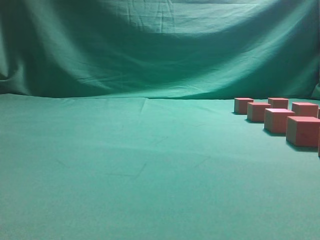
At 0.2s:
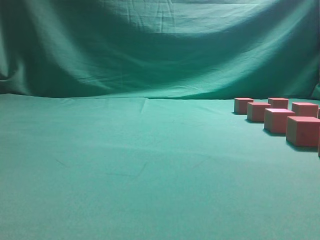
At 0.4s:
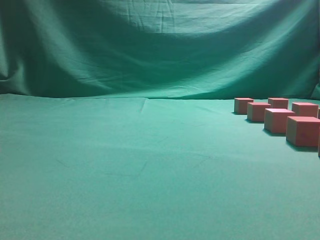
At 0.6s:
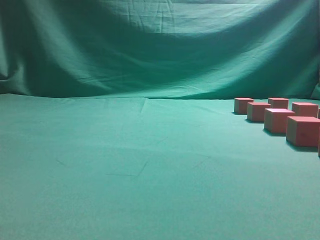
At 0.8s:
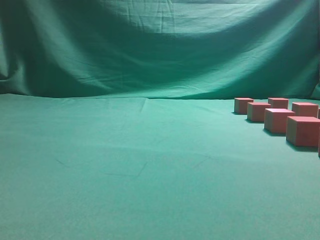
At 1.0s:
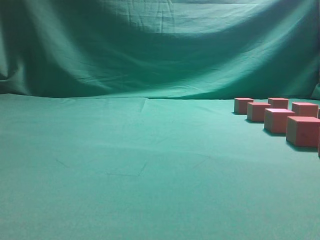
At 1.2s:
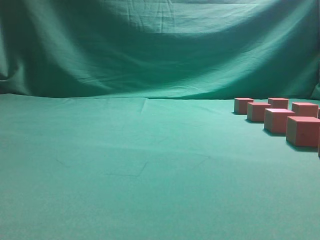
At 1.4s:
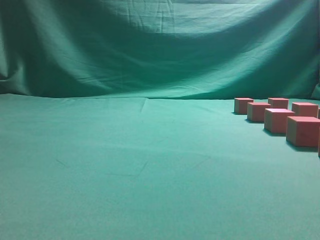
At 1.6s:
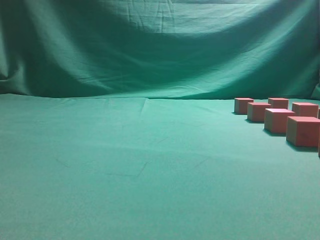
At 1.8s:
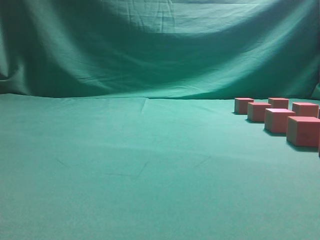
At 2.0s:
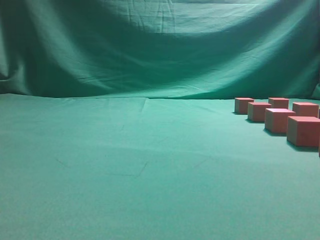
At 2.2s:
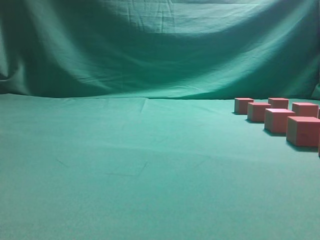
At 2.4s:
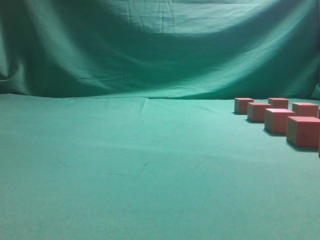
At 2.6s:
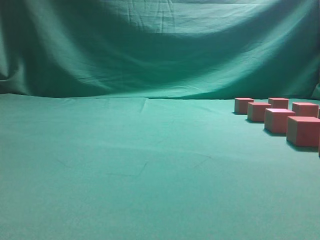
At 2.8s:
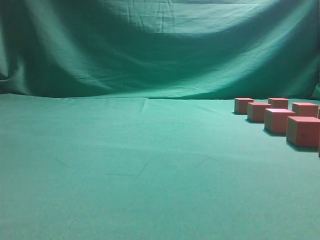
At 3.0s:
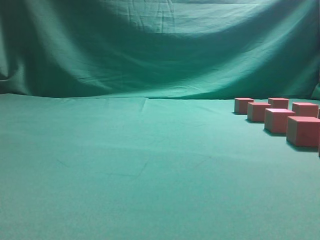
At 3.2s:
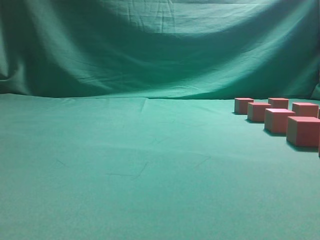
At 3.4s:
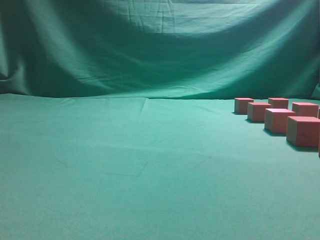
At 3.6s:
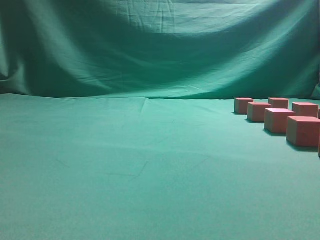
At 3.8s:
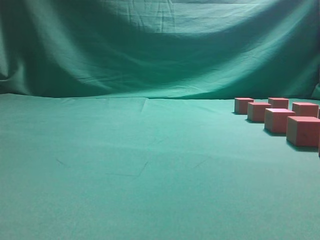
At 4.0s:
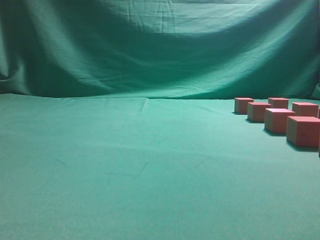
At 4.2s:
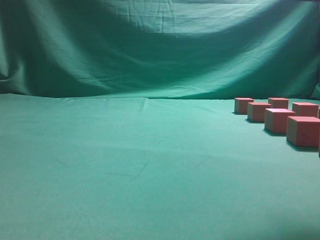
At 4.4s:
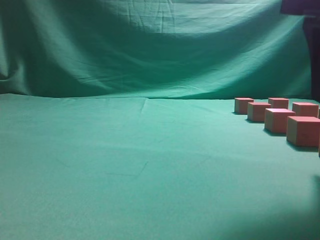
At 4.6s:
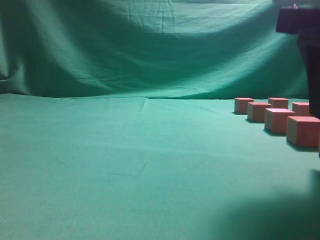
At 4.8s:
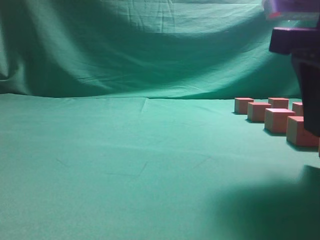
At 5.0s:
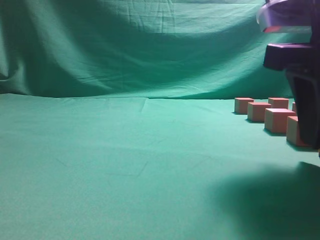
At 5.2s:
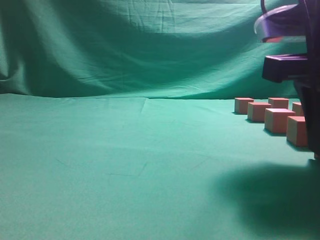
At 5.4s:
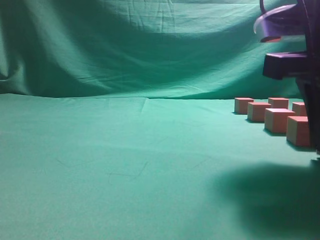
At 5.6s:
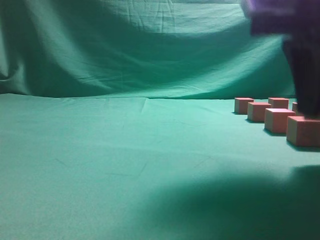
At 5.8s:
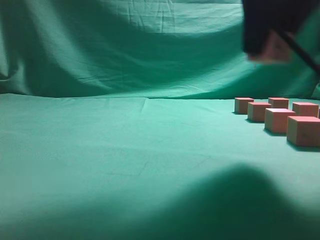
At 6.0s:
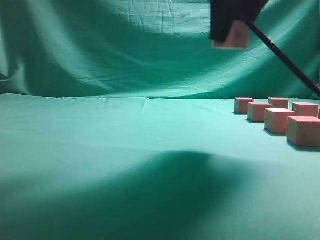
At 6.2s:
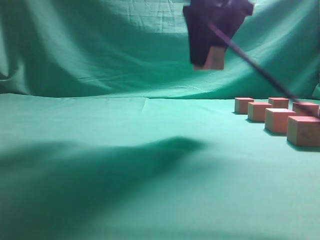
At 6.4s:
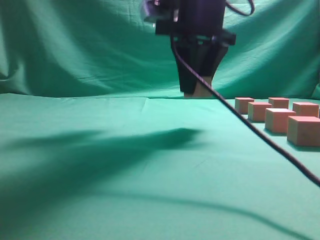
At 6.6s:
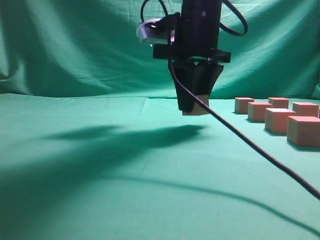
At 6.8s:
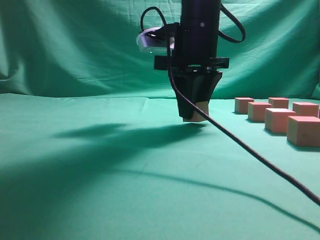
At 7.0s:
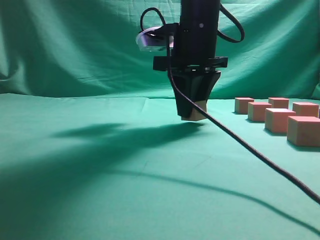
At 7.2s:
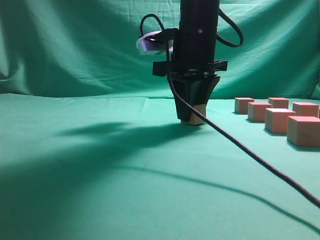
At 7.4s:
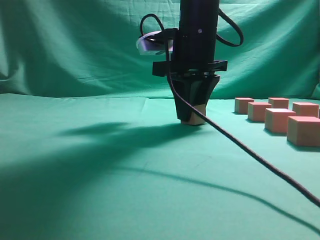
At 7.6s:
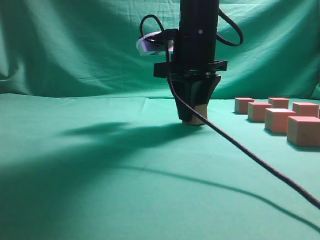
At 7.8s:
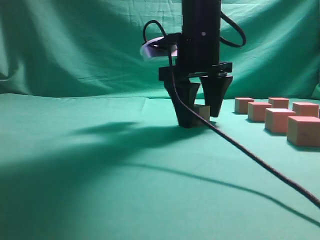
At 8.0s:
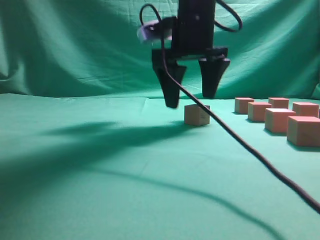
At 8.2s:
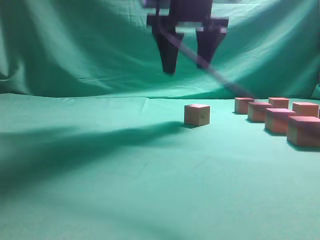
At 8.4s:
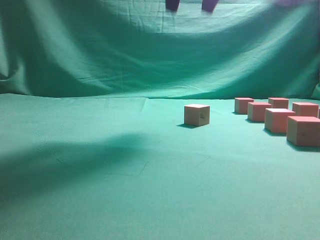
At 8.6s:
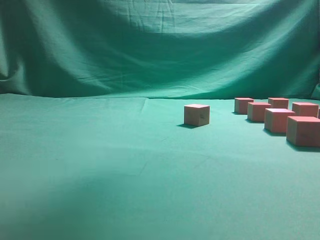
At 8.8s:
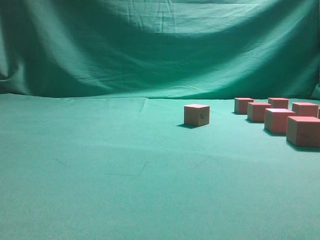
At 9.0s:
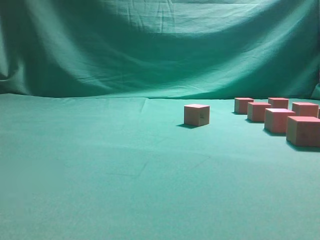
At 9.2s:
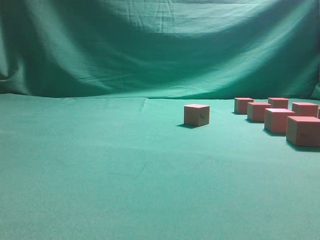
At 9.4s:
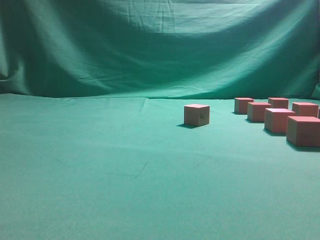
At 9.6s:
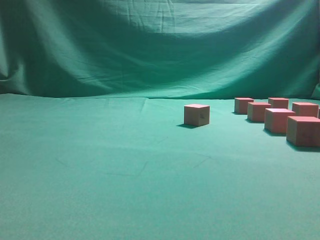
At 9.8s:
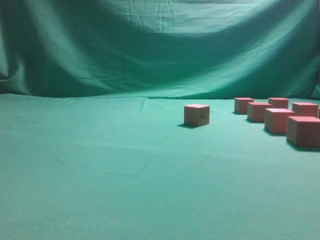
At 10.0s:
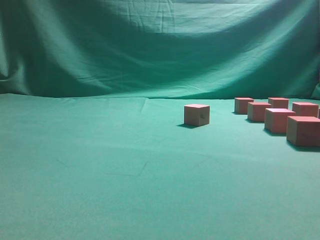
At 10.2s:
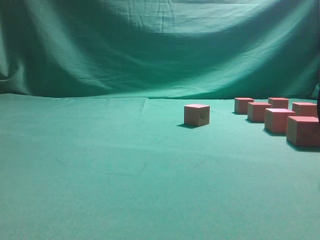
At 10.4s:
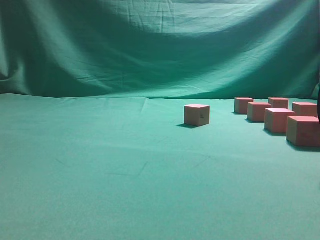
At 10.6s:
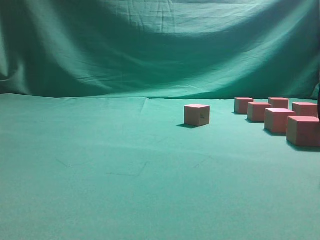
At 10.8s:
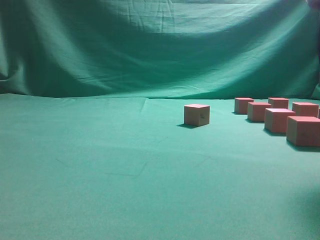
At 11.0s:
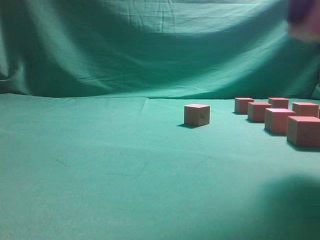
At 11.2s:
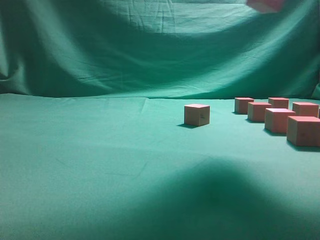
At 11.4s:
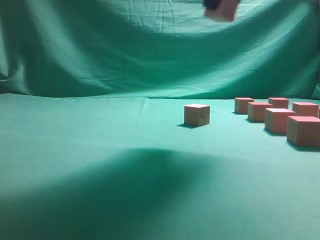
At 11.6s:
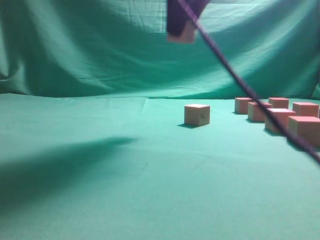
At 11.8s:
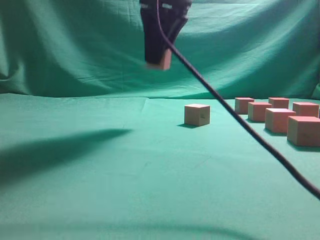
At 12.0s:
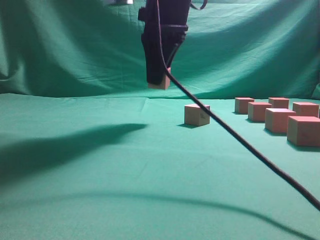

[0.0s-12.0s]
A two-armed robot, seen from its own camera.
Task of the whole recording: pick up the multiple cubes in two columns one by one and place them in another position on the table.
Step, 0.0s to 5.8s: Pick up the block on the table.
Step, 6.0s to 8.2s: Place the block at the correct position to assemble the letter S.
Step, 8.4s to 10.6s: Pick up the block on the table.
3.0s to 4.4s: The right gripper goes roughly 15 cm forward, downward and to the left, and opens up.
4.4s to 6.0s: The right gripper travels forward, to the left and upward by roughly 15 cm.
6.0s to 7.6s: The right gripper heads downward, forward and to the left, covering roughly 15 cm.
7.6s to 9.0s: The right gripper shifts about 30 cm upward, backward and to the right, and opens up.
10.4s to 12.0s: The right gripper goes about 25 cm to the left and forward.

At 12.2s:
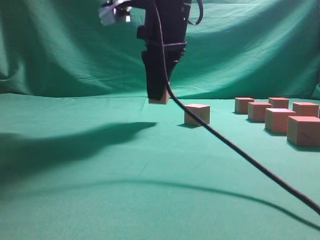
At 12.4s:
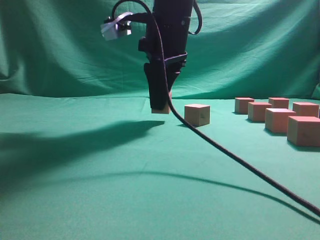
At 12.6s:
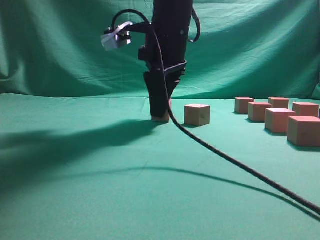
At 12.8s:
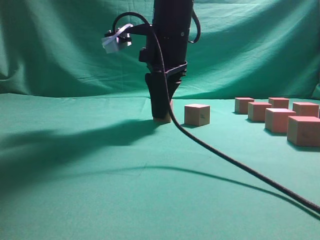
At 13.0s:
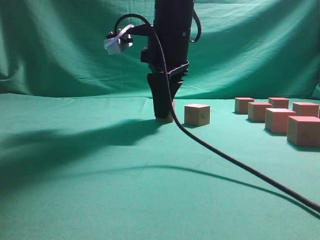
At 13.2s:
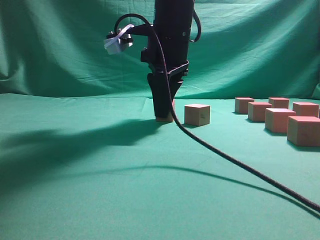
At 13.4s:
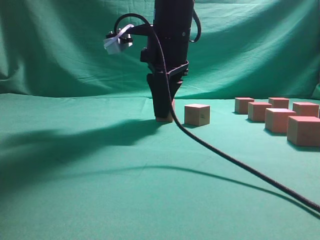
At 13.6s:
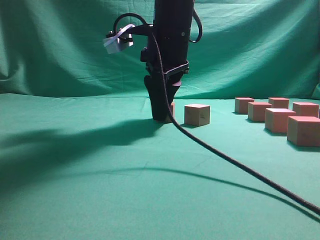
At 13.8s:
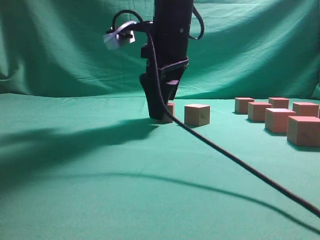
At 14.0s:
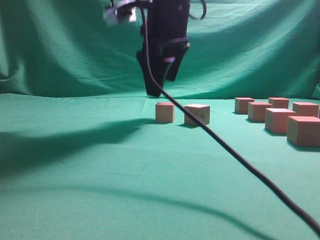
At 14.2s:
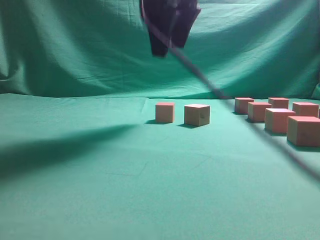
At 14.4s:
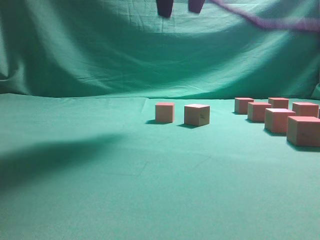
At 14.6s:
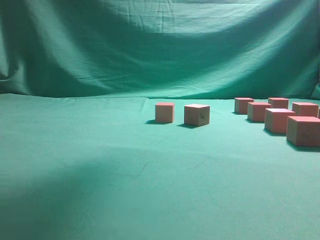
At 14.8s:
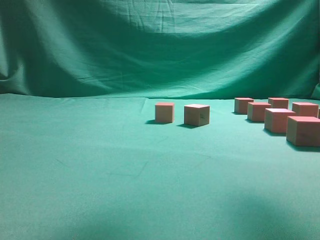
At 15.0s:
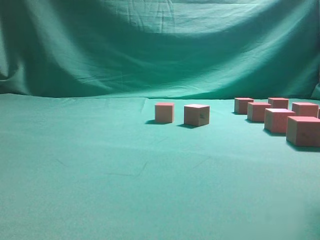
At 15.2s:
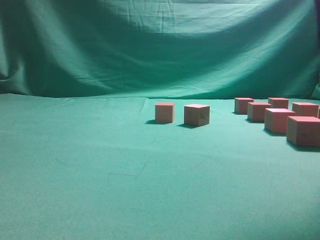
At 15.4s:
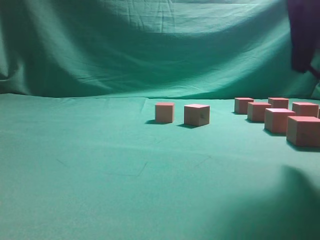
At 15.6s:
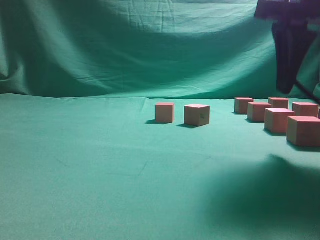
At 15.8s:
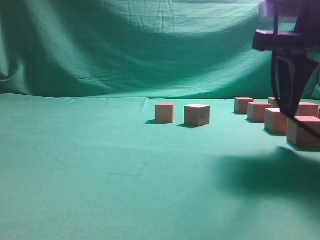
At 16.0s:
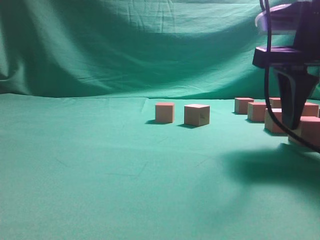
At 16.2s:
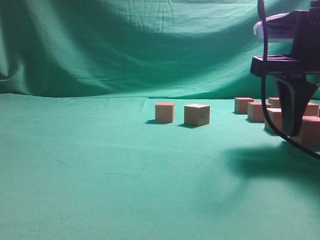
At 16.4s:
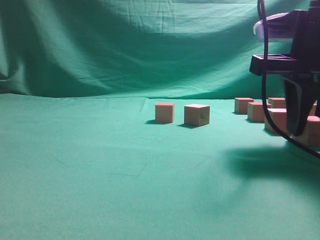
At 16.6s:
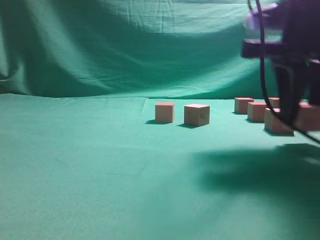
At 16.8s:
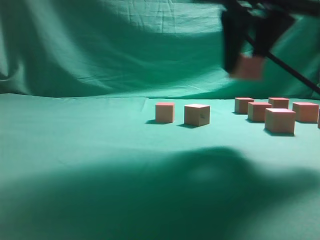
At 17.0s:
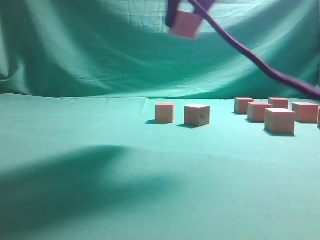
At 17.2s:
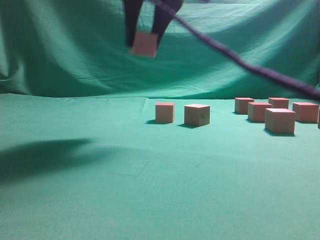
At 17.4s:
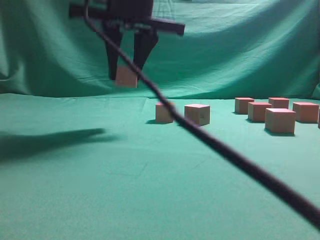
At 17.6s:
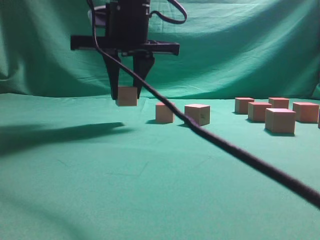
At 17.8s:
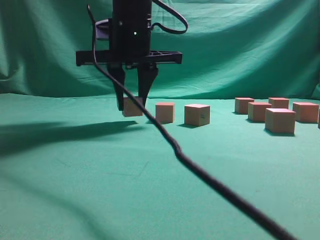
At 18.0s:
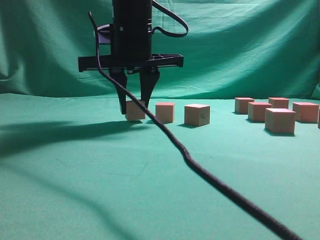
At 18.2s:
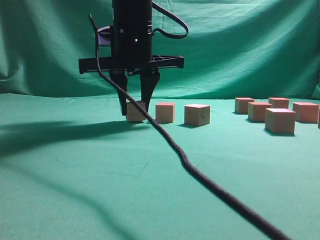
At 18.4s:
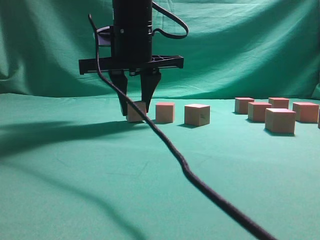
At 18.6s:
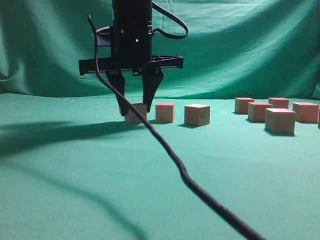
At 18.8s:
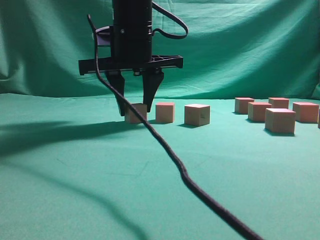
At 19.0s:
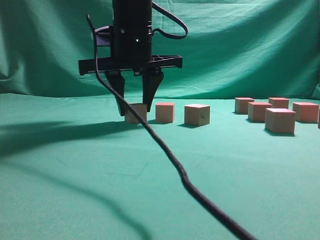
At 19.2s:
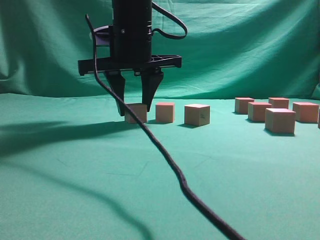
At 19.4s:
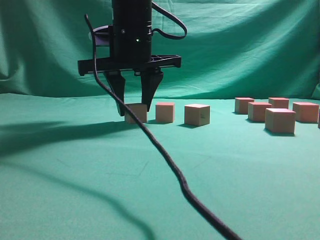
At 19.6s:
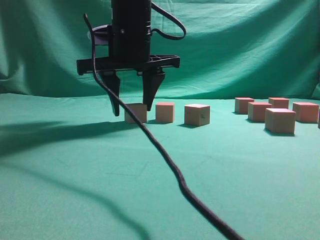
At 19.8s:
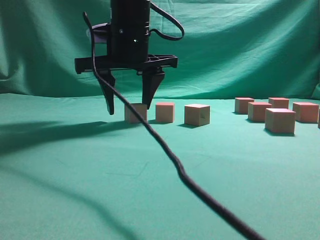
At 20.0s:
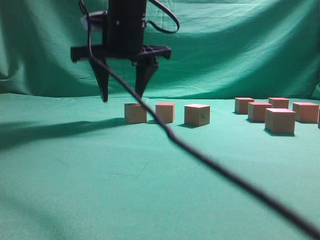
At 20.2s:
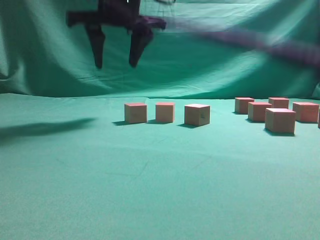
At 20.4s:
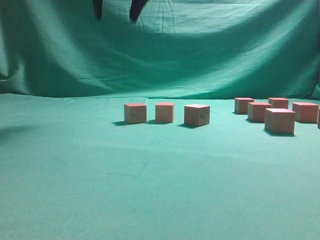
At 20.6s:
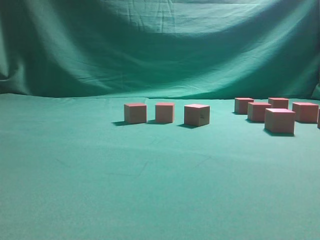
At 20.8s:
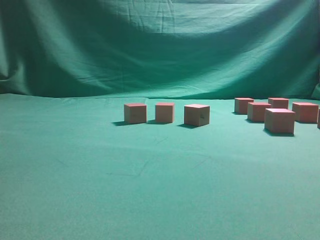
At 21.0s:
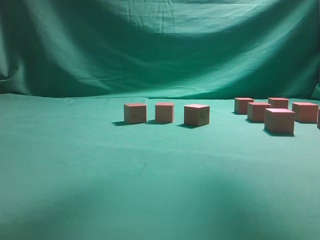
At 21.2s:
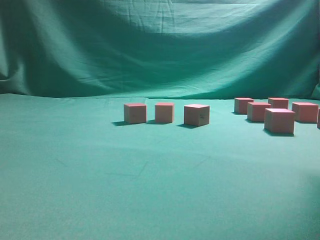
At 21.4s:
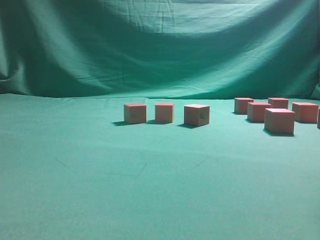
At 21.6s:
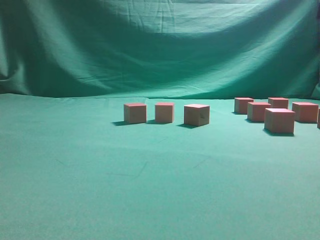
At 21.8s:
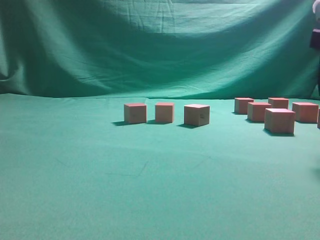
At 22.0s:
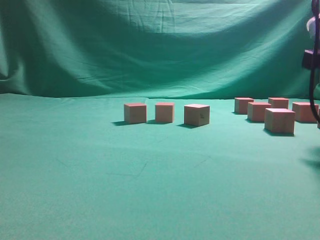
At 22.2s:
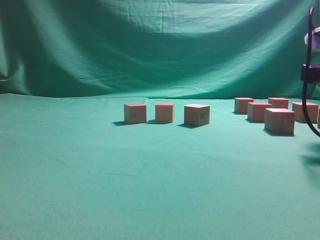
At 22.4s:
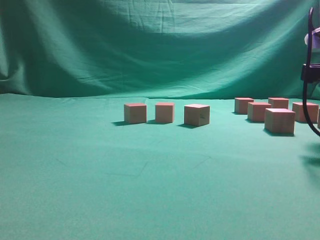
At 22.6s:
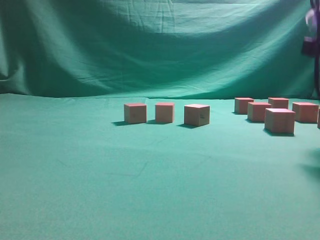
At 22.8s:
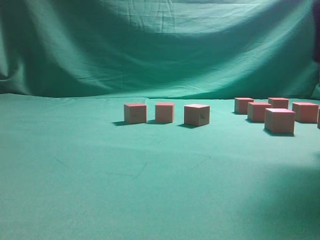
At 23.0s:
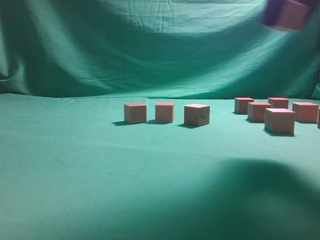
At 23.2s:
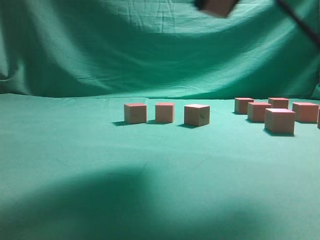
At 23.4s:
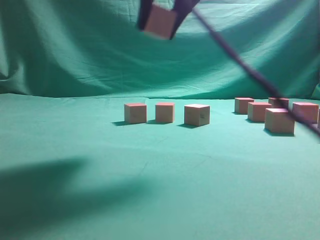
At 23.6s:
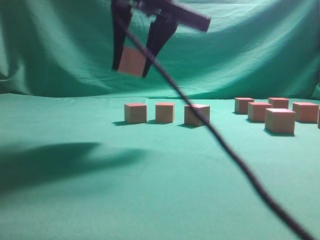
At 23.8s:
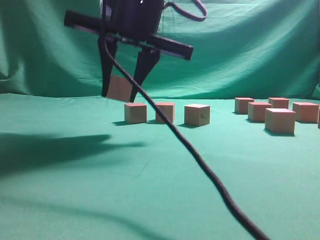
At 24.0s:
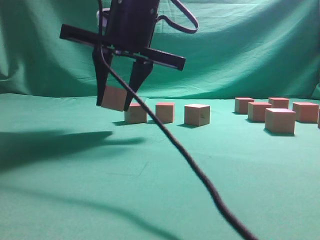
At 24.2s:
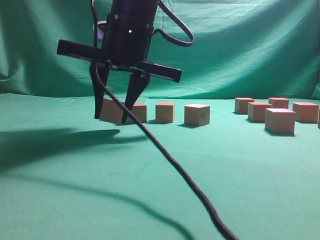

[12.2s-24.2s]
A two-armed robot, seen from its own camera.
Task of the whole recording: pick up the multiple cubes in two columns one by one and place them in another position on the table.
Step, 12.2s to 14.2s: Place the block at the correct position to assemble the letter S.
Step, 14.4s to 16.6s: Pick up the block on the table.
Step, 16.8s to 20.2s: Place the block at the correct position to assemble the letter S.
Step, 20.4s to 22.8s: Pick up the block on the table.
12.2s to 13.8s: The right gripper opens.
13.8s to 15.2s: The right gripper shifts approximately 25 cm to the right, backward and upward.
15.2s to 16.6s: The right gripper heads downward, covering about 10 cm, and closes up.
16.6s to 18.2s: The right gripper is displaced to the left and forward by some 25 cm.
18.2s to 19.8s: There are only small adjustments of the grippers.
19.8s to 21.2s: The right gripper shifts about 30 cm to the right and upward.
21.2s to 22.6s: The right gripper goes some 15 cm downward.
22.6s to 24.2s: The right gripper heads to the left, covering roughly 30 cm.
